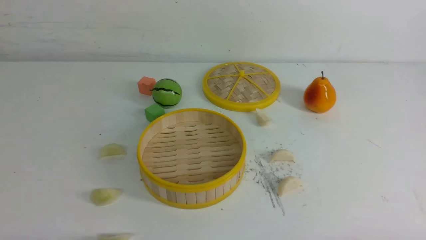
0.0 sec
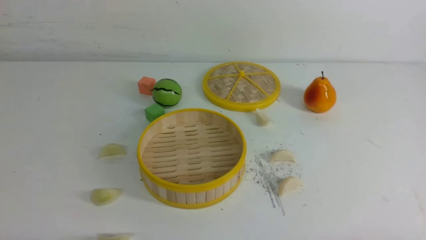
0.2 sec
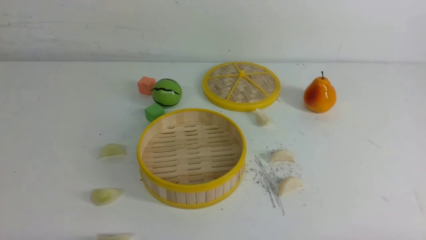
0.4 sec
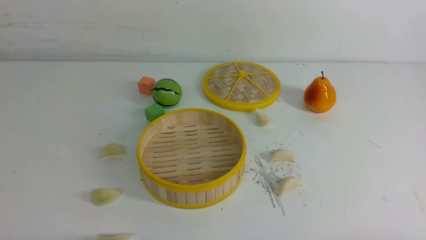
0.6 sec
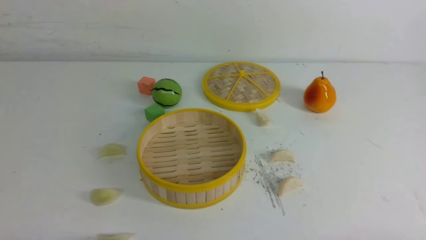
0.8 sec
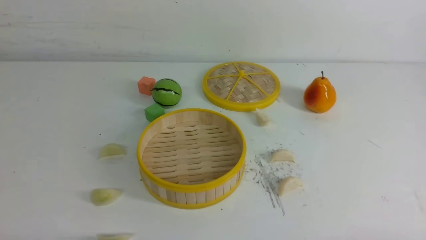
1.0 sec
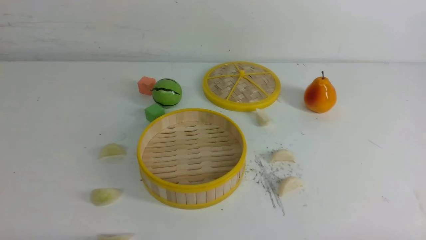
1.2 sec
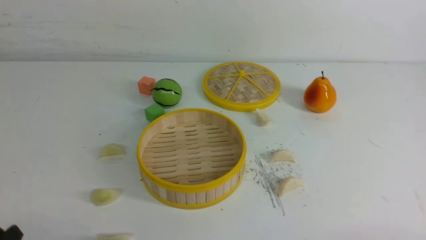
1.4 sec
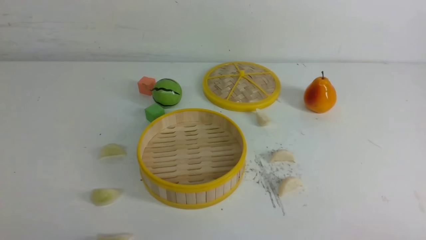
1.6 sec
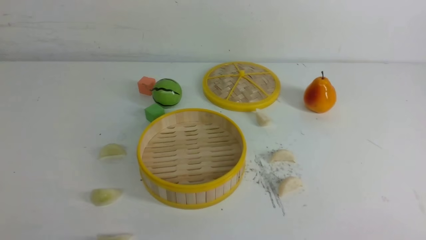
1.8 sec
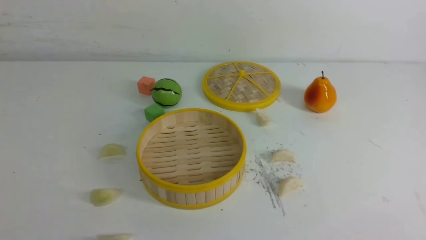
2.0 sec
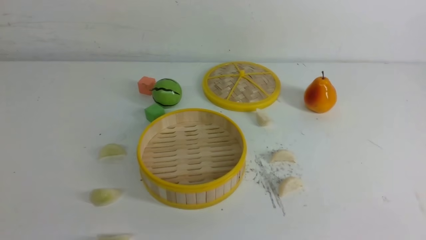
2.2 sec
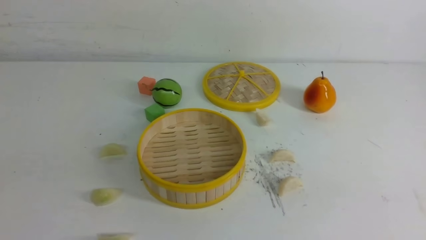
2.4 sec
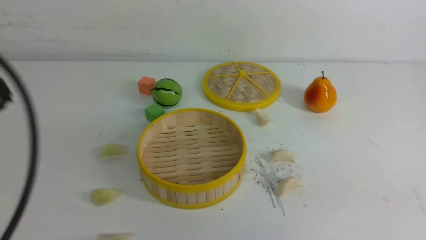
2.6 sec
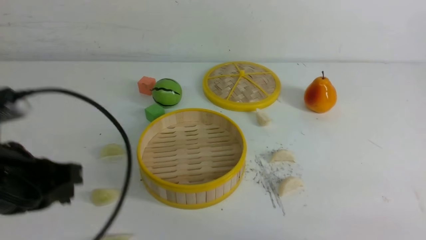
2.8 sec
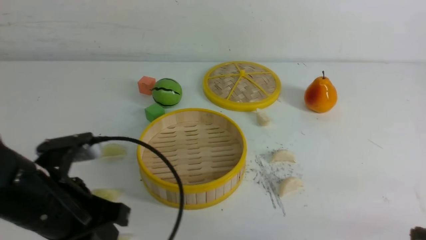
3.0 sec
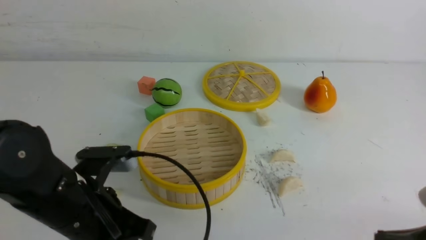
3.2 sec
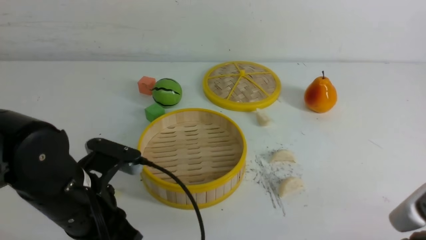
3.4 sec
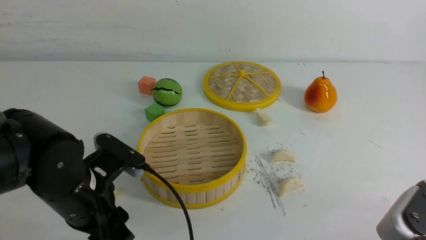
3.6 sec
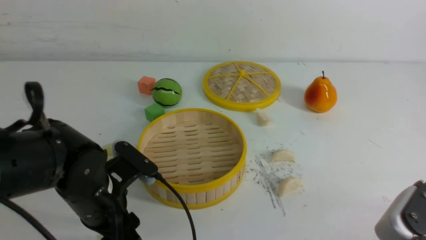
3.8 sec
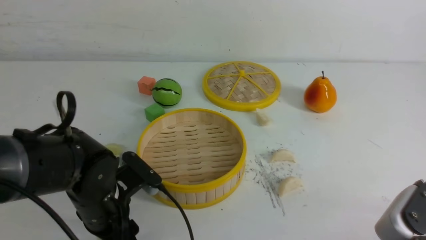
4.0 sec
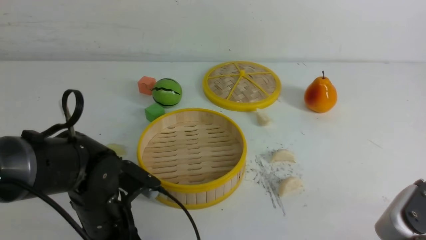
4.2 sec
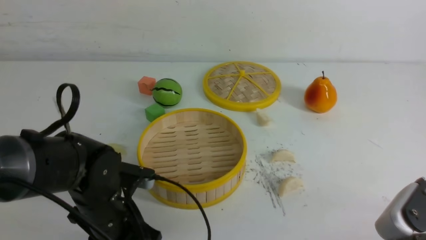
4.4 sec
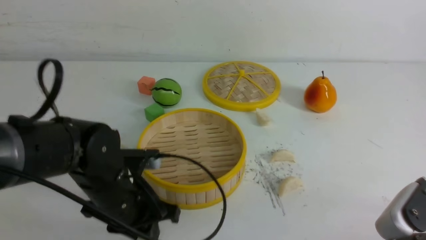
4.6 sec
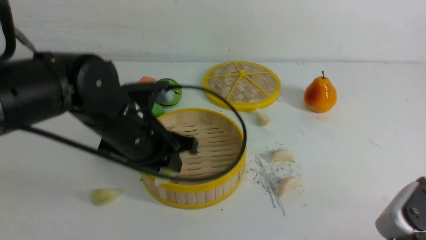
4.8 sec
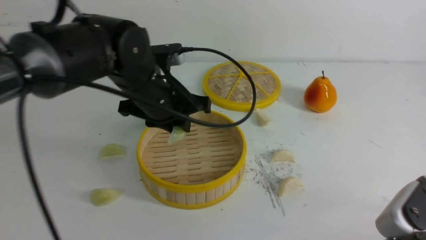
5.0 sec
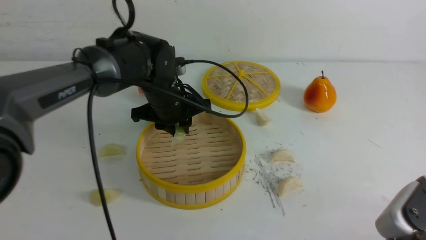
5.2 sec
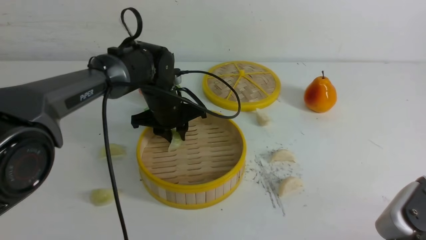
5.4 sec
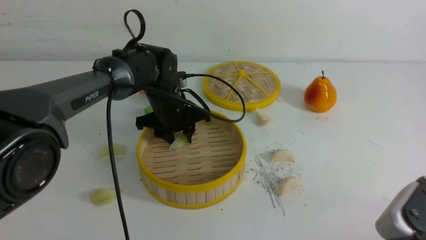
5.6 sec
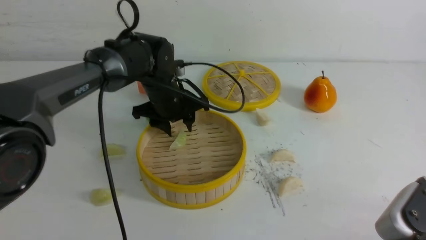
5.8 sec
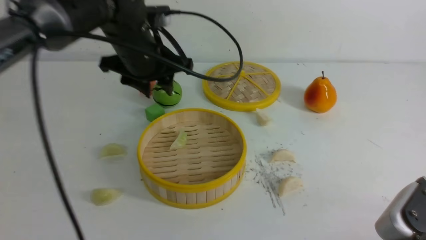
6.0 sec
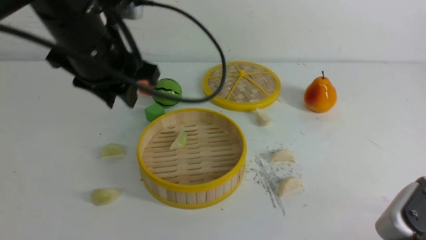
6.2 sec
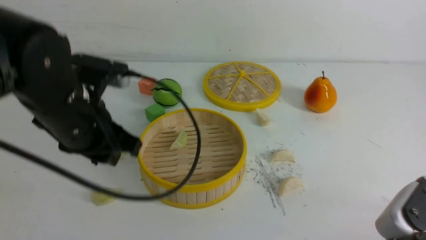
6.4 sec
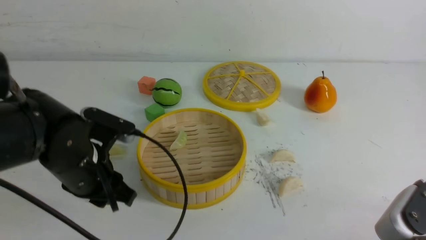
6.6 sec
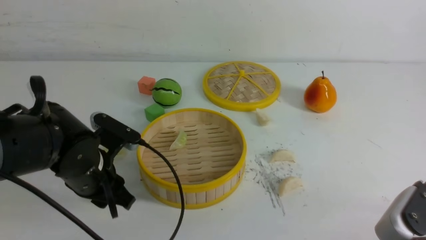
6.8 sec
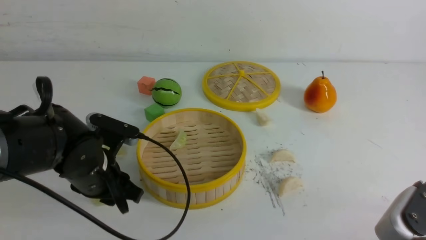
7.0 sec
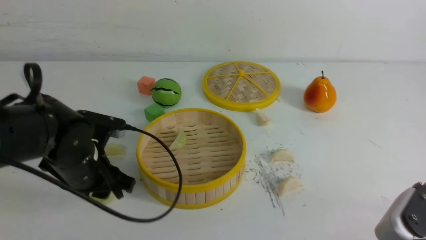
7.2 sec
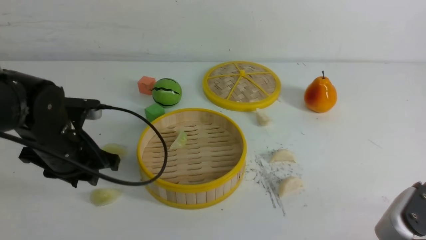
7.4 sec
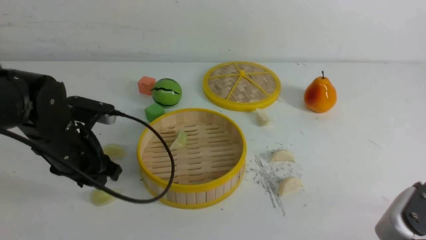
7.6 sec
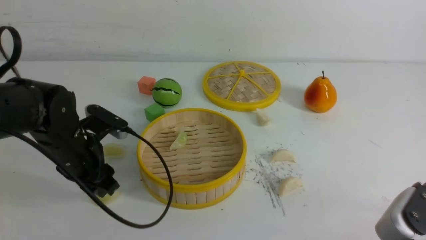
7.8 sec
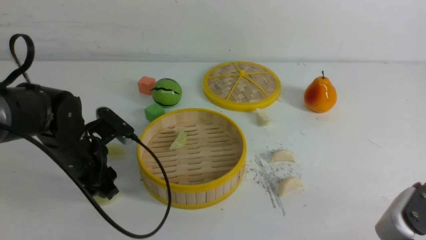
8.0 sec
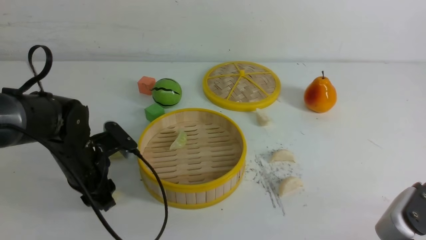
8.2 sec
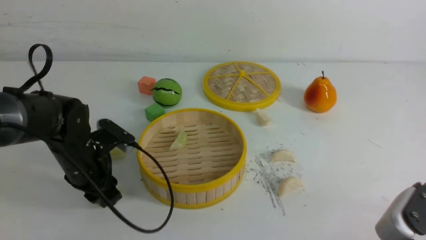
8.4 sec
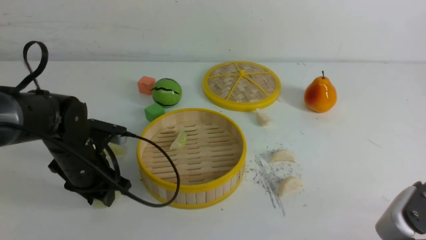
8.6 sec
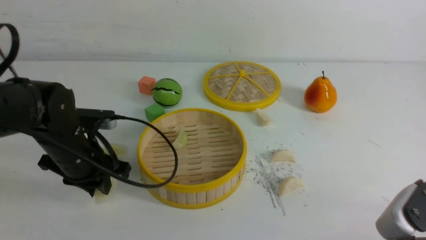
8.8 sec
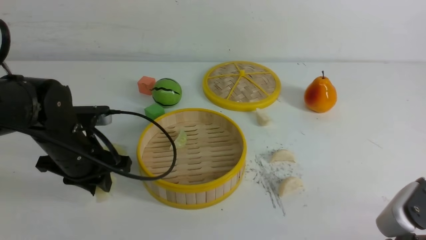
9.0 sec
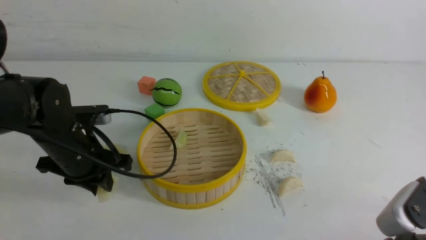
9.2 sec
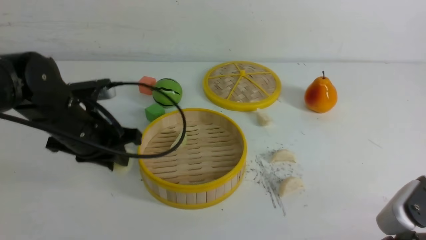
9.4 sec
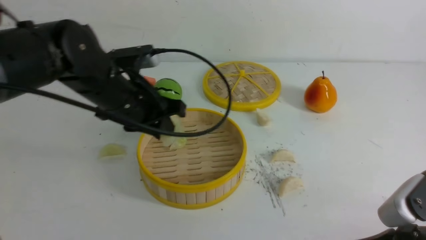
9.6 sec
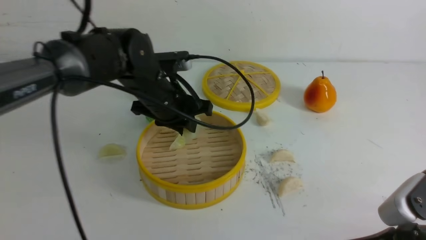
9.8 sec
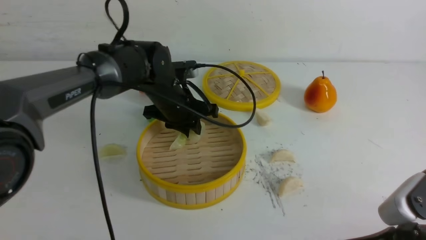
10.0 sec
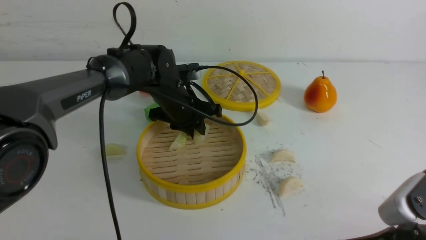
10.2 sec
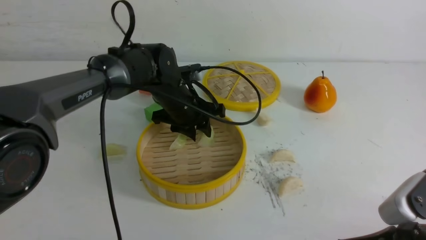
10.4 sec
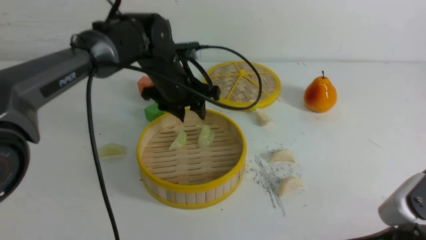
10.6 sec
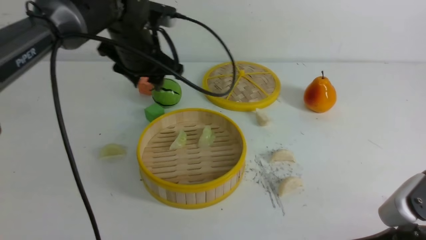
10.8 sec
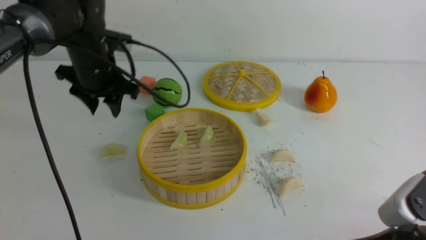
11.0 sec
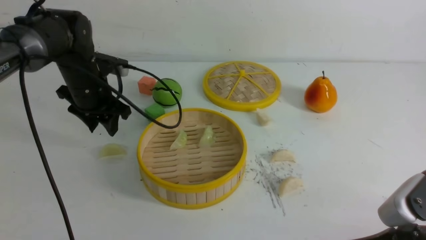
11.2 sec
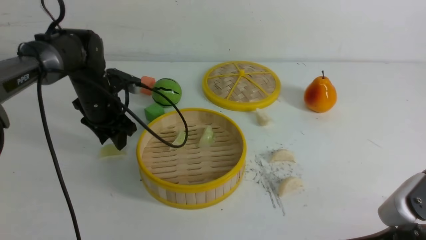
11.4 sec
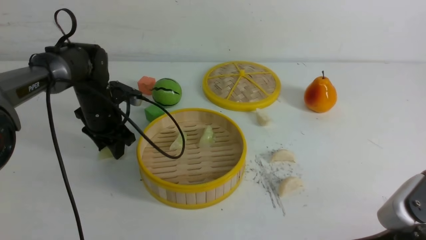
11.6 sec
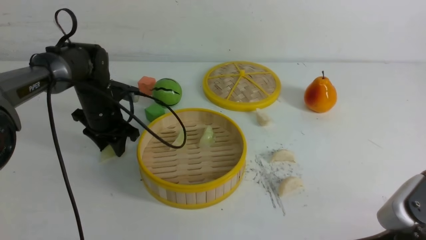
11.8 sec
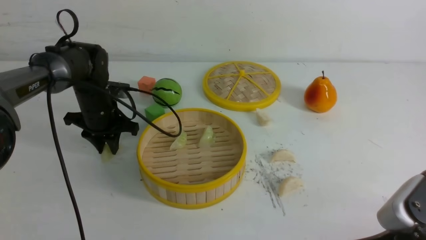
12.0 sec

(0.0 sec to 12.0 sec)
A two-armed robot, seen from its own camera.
Task of the whole recording: put the dumplings into the steamer on the white table.
Step, 0.0 sec - 4.4 sec: use the left arm to grab a dumpling.
Step, 4.6 sec - 5.6 sec: use the left arm to put the dumpling into the steamer.
Step, 5.8 sec - 8.6 sec: use the left arm to grab a dumpling.
Step, 8.8 sec - 10.4 sec: use the left arm to put the dumpling into the steamer.
1.6 sec - 3.0 sec: The left gripper heads forward and to the right, covering approximately 15 cm, and closes up. Meanwhile the right gripper is displaced forward by approximately 5 cm, reaches roughly 10 cm upward, then returns, and closes its fingers.
3.0 sec - 4.4 sec: The left gripper shifts about 10 cm downward and forward, and opens up, while the right gripper goes about 5 cm to the left.
4.4 sec - 6.0 sec: The left gripper travels upward and forward by roughly 20 cm.
6.0 sec - 7.6 sec: The left gripper is displaced downward, to the left and backward by roughly 15 cm.
7.6 sec - 9.0 sec: The left gripper closes its fingers.
9.0 sec - 10.4 sec: The left gripper shifts approximately 20 cm to the right and forward.
10.4 sec - 12.0 sec: The left gripper heads to the left, covering approximately 15 cm.

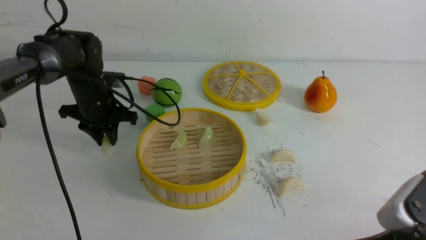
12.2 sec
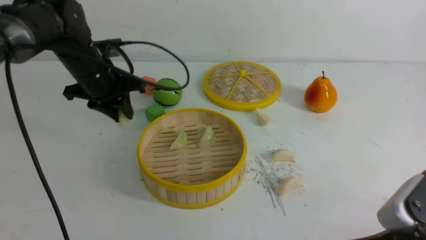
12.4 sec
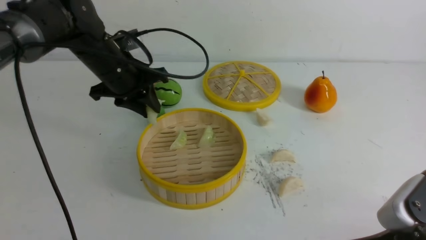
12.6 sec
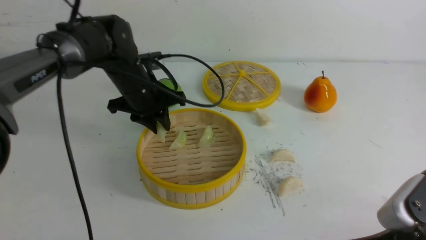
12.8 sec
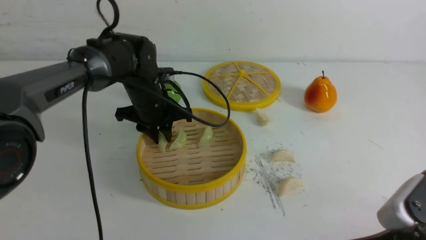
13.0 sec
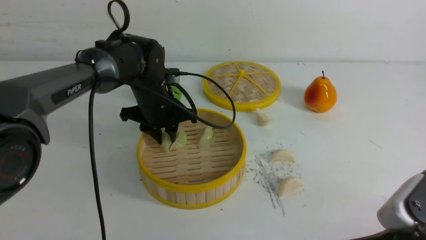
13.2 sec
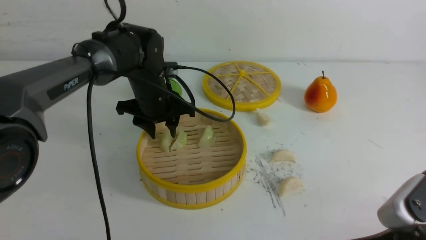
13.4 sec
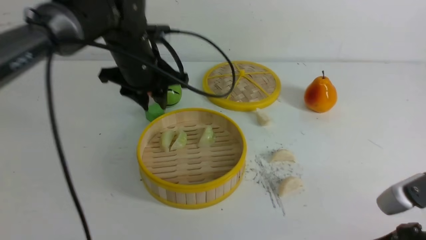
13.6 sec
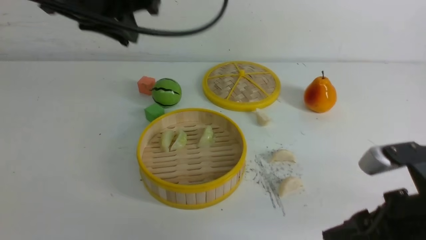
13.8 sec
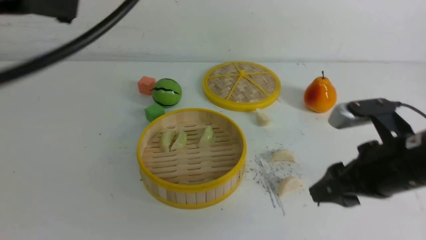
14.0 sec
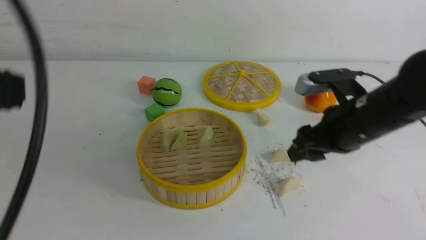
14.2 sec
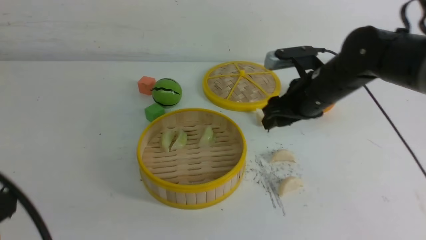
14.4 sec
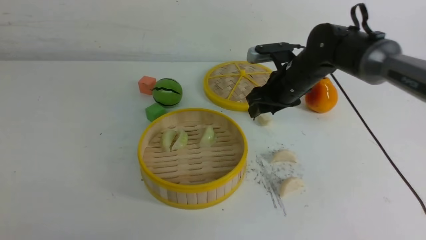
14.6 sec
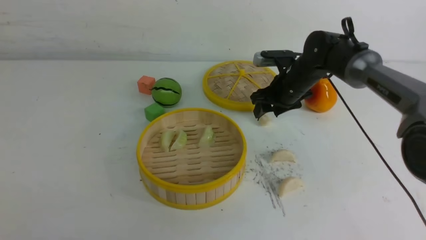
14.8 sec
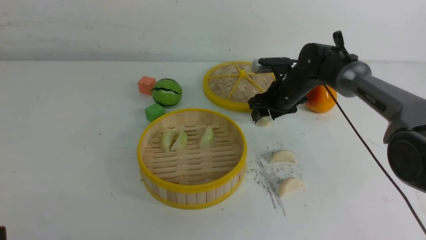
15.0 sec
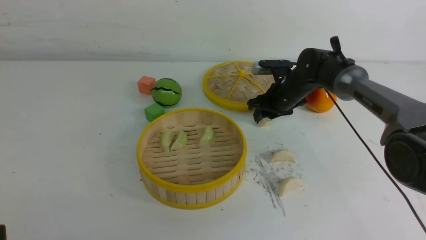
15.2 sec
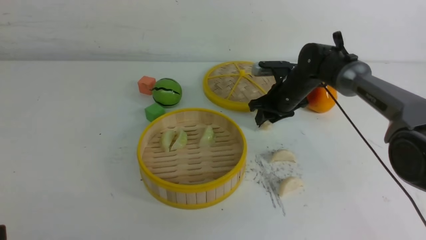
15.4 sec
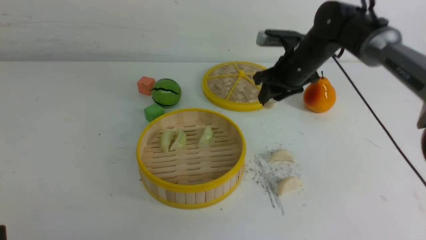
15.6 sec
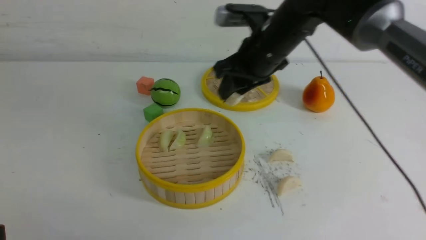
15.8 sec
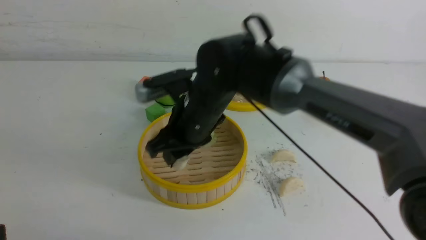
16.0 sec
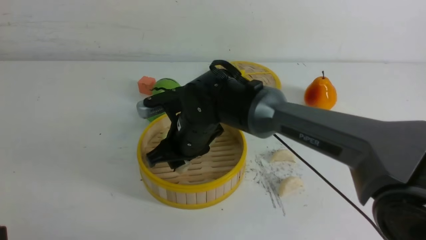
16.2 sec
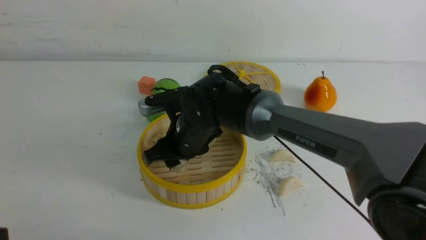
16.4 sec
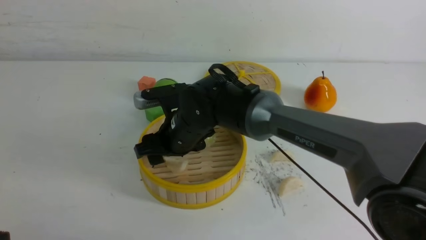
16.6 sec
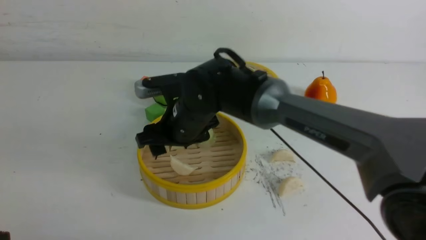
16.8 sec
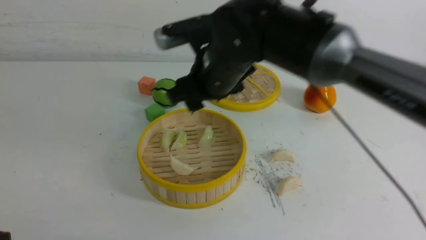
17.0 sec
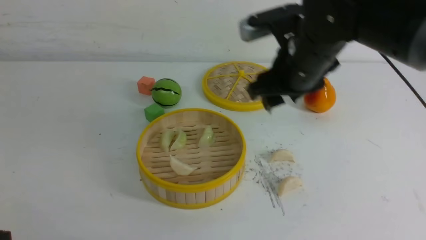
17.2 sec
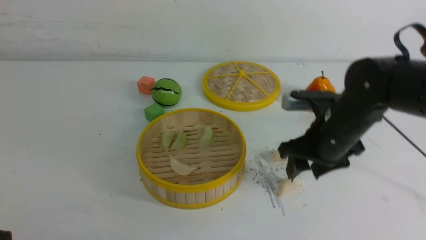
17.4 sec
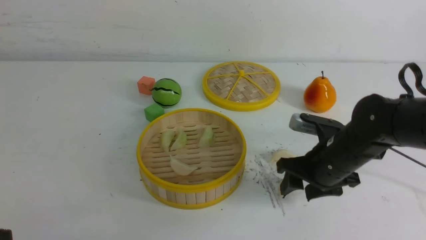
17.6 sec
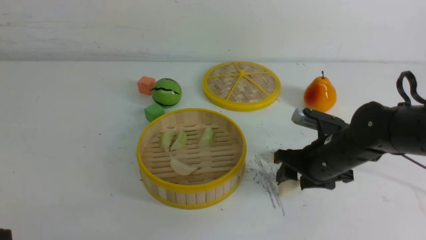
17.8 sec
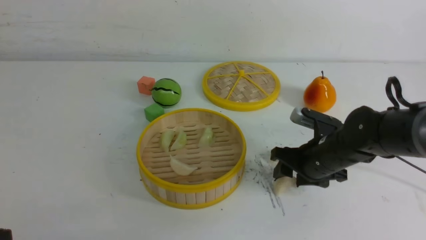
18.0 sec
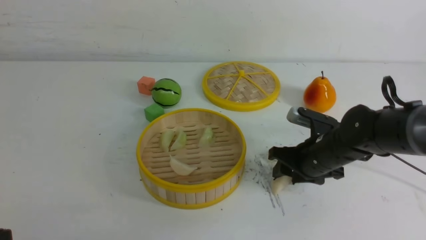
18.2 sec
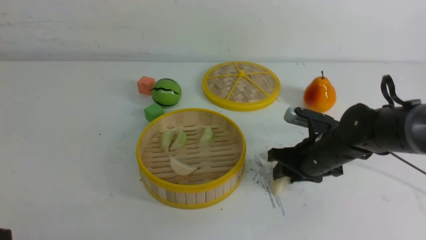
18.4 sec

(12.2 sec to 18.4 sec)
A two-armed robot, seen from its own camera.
Task of the whole recording: put the dumplings into the steamer on the white table.
Step, 12.2 sec - 13.2 sec: use the left arm to put the dumpling into the steamer.
Step, 13.4 sec - 15.2 sec: use the right arm to grab a dumpling.
Step, 15.6 sec - 16.4 sec: use the right arm to put the dumpling into the steamer.
12.2 sec - 13.8 sec: The right gripper ends up some 5 cm from where it was, and opens up. Meanwhile the left gripper swings up and down, some 25 cm each way, with 2 reversals.
13.8 sec - 15.4 sec: The right gripper shifts approximately 35 cm forward; the left gripper travels backward, downward and to the left by roughly 30 cm.
15.4 sec - 16.8 sec: The right gripper is displaced to the left and backward by about 25 cm, and opens.
16.8 sec - 18.4 sec: The right gripper moves to the right and downward, roughly 25 cm.
